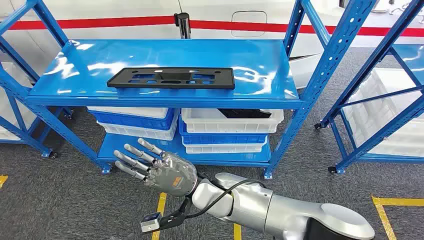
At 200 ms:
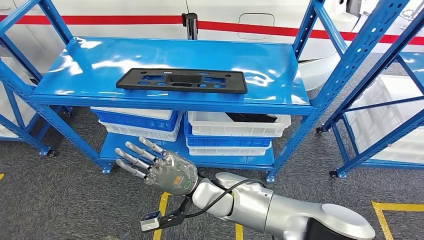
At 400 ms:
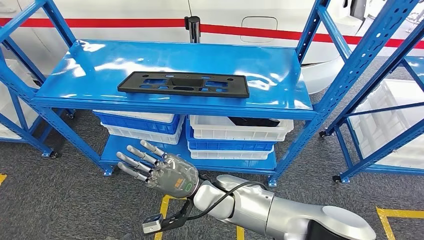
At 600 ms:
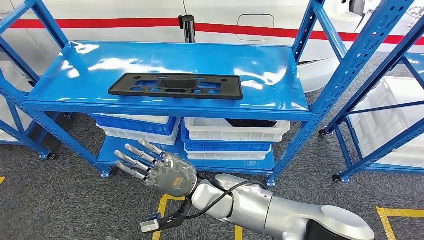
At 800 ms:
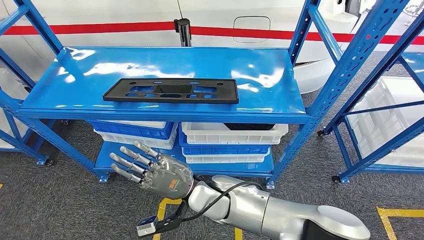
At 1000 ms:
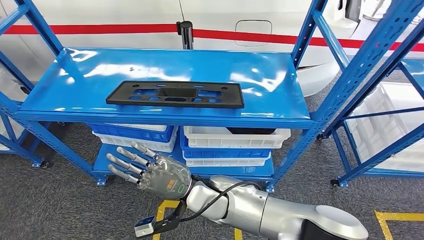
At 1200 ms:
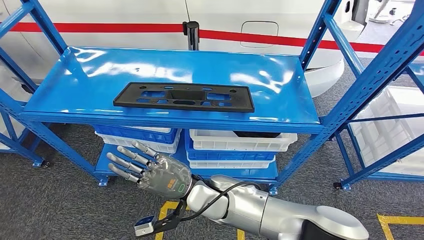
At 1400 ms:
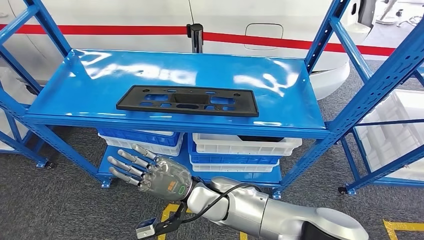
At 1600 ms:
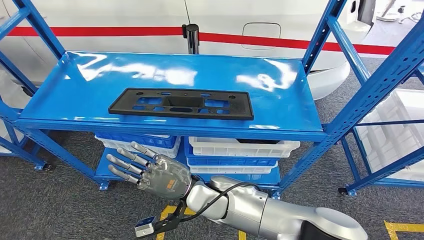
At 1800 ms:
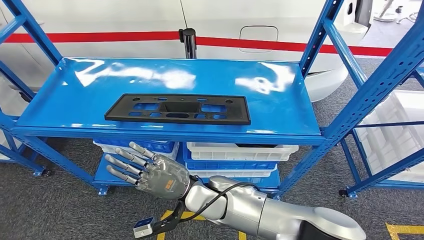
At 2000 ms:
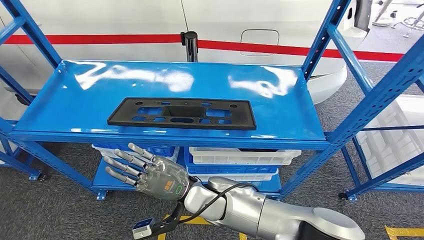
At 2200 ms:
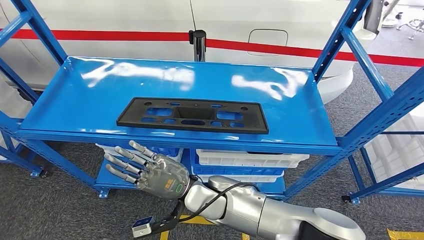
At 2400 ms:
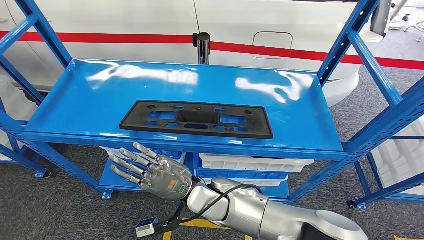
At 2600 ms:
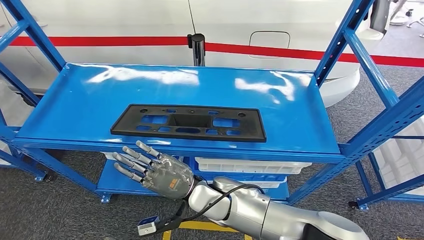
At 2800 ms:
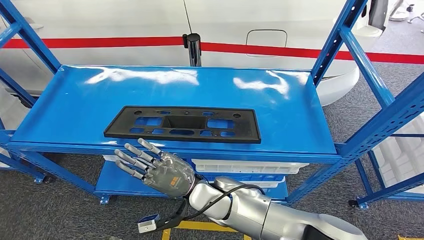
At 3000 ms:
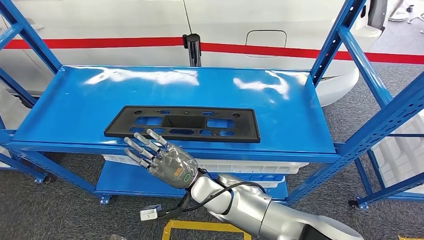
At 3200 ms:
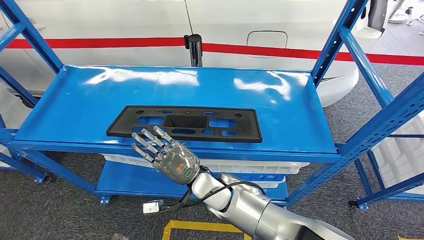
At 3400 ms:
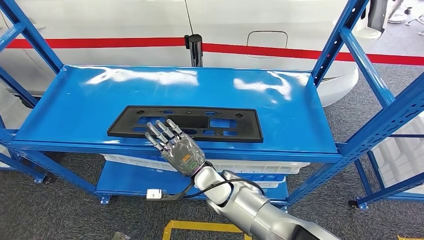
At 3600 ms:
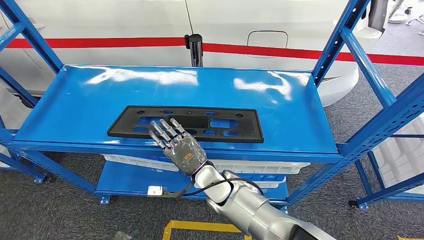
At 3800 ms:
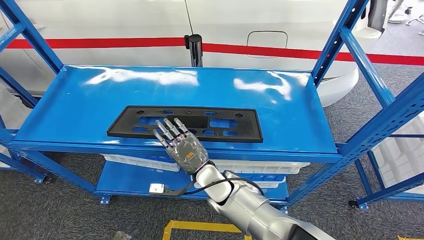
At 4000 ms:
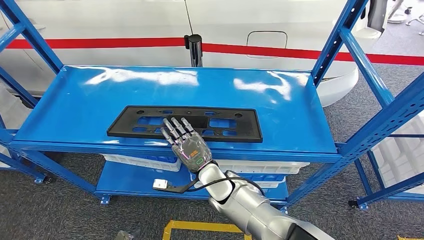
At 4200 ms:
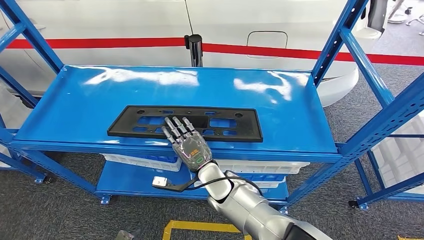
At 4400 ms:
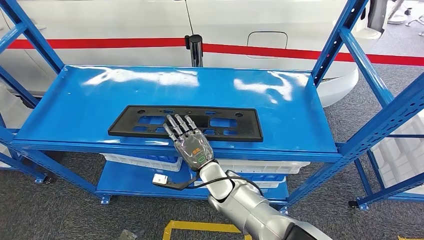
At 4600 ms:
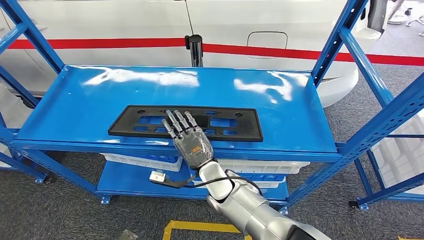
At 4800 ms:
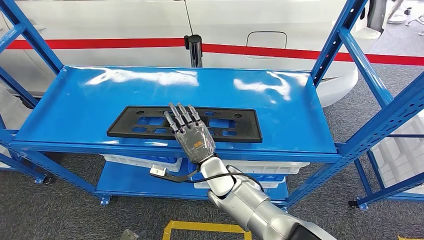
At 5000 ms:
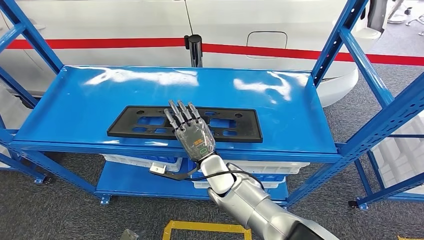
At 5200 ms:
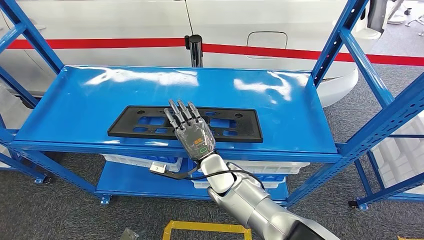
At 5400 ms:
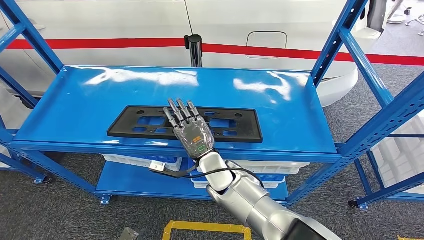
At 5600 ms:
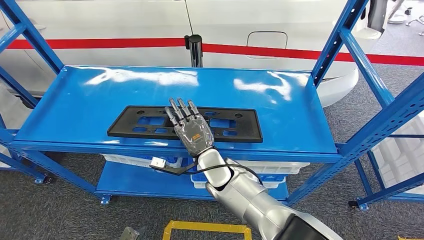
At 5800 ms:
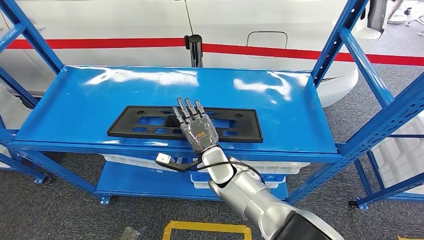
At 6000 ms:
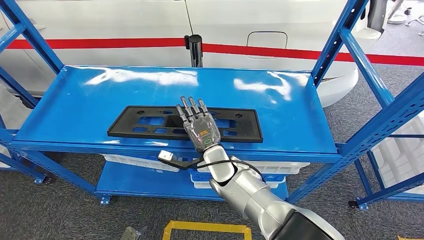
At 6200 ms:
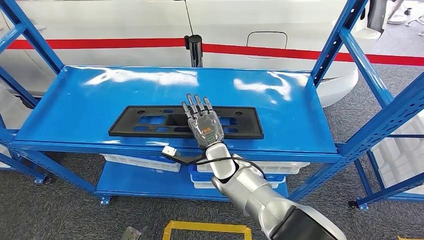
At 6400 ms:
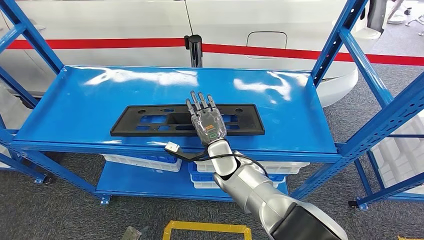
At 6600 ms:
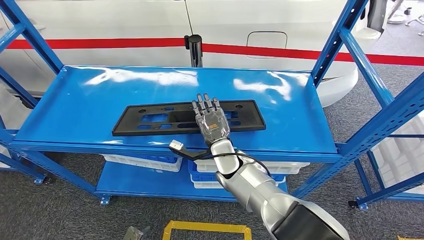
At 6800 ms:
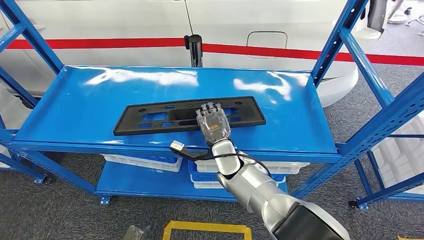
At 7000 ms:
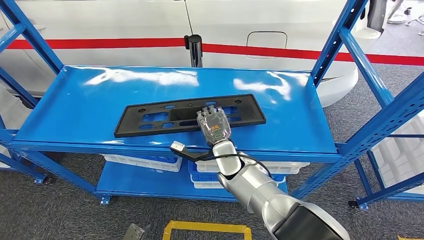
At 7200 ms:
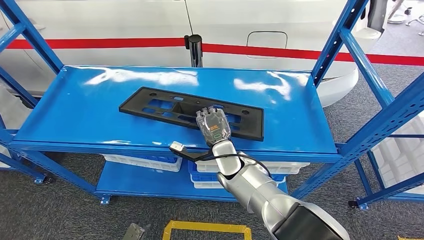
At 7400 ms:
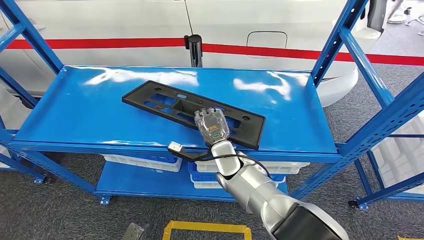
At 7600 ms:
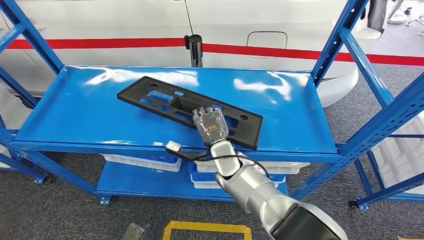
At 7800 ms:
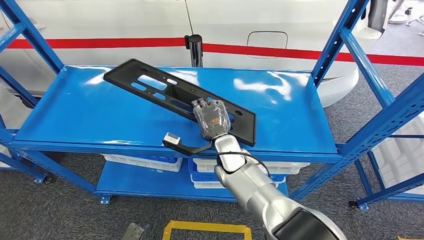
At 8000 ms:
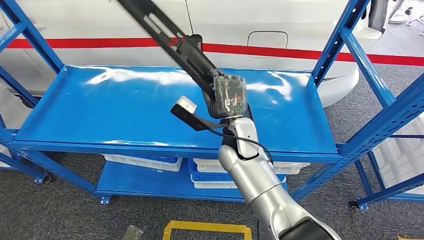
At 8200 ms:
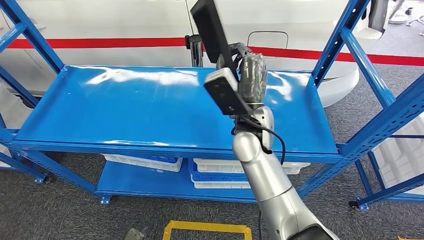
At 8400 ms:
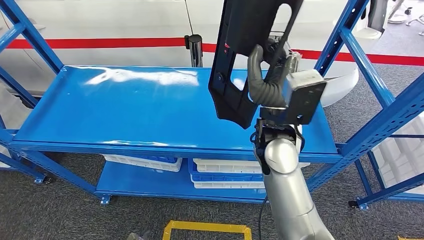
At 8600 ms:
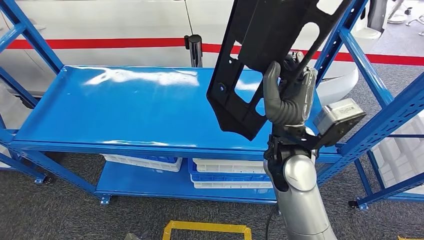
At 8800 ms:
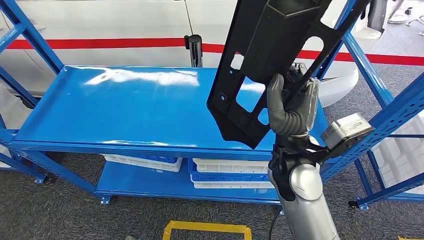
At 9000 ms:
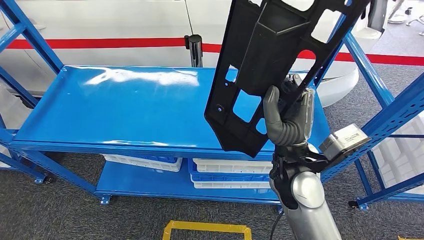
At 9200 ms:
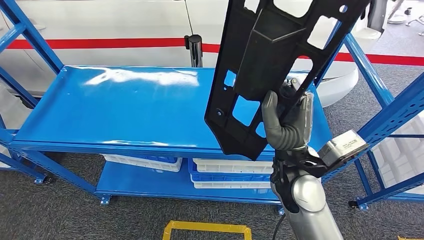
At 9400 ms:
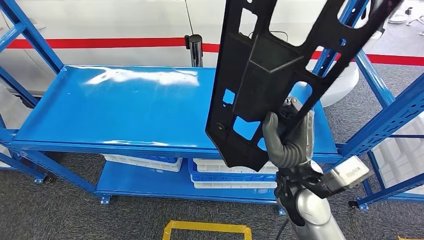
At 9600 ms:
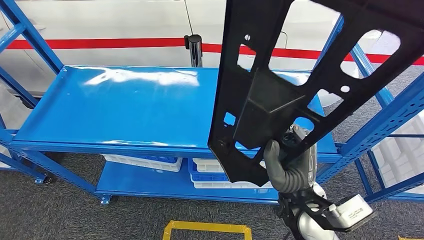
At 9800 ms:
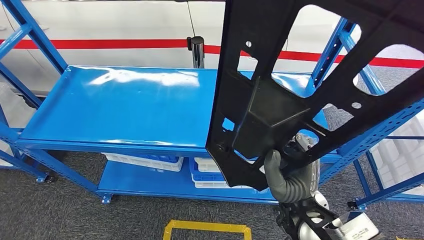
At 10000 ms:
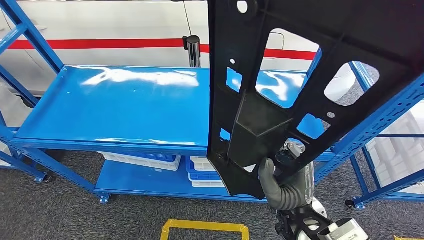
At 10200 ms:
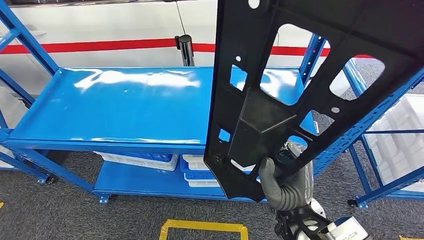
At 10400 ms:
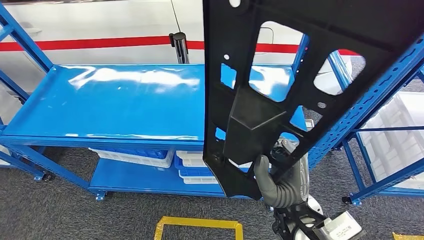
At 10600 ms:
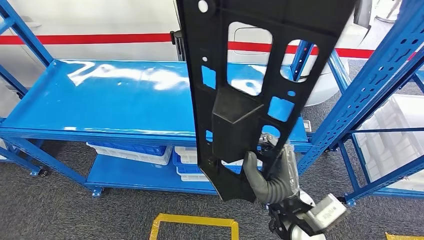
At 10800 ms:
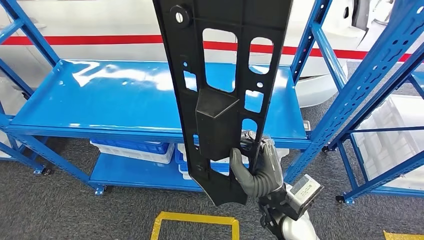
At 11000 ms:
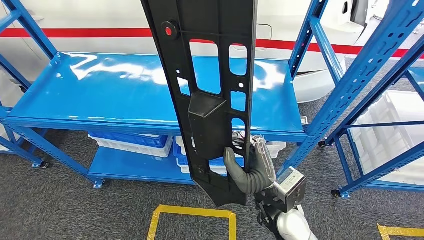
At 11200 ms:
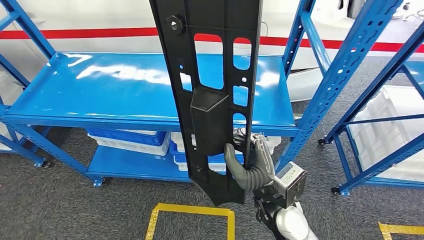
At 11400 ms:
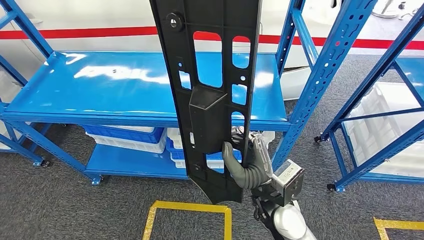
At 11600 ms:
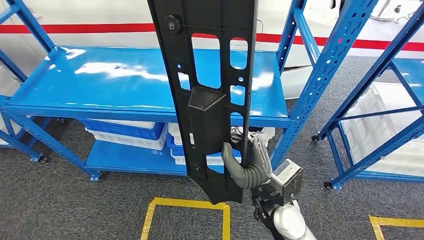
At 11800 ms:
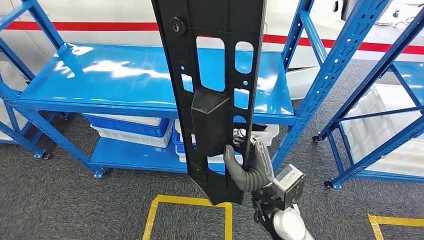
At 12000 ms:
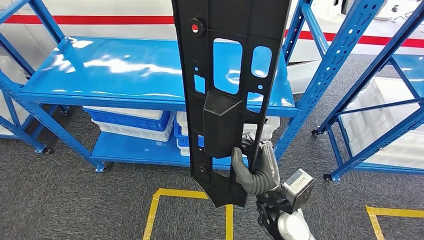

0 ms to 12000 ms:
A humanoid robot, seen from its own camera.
Step, 0 ms to 10800 ms: Pick up the large material from the shelf.
3000 ms to 4400 ms: The right hand ends up approximately 5 cm from where it was.
4400 ms to 6000 ms: The hands move only a little.
6000 ms to 7600 ms: The hands move only a little.

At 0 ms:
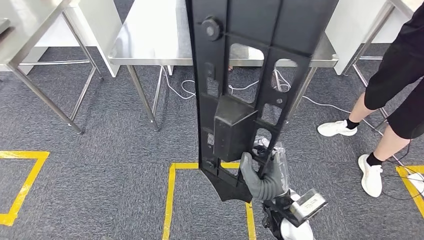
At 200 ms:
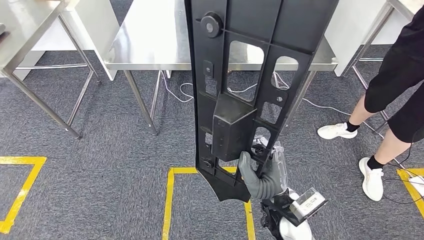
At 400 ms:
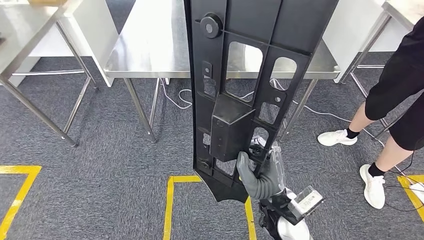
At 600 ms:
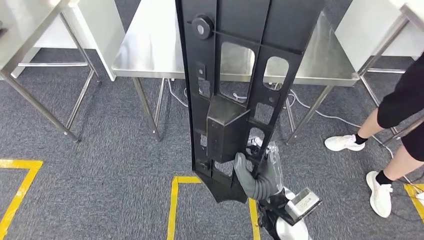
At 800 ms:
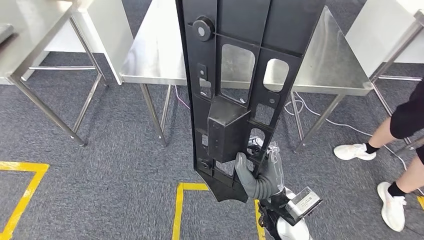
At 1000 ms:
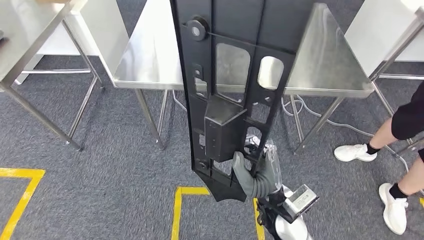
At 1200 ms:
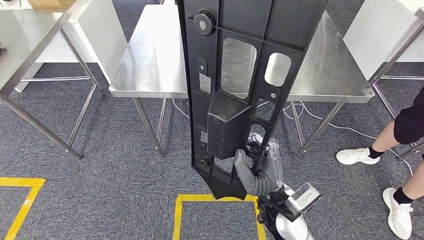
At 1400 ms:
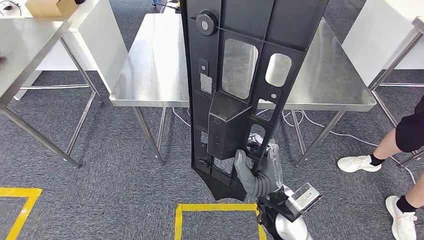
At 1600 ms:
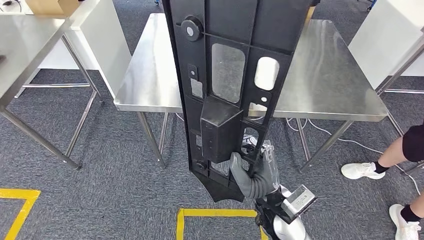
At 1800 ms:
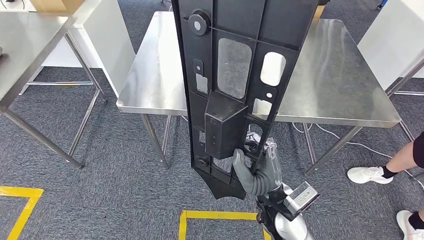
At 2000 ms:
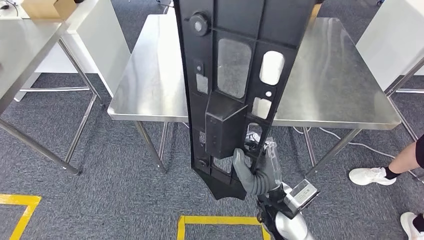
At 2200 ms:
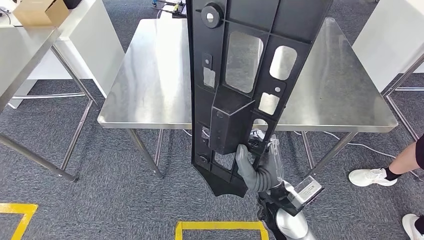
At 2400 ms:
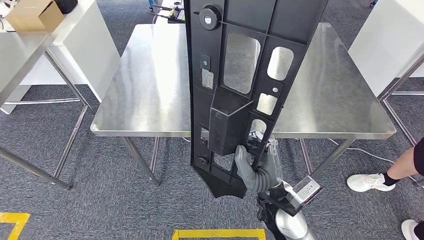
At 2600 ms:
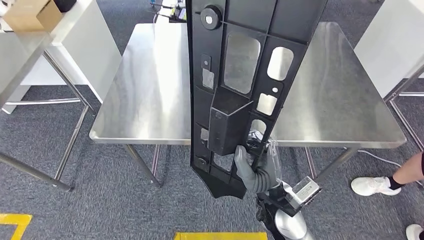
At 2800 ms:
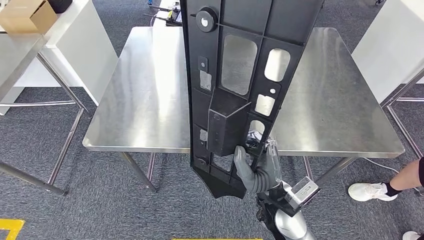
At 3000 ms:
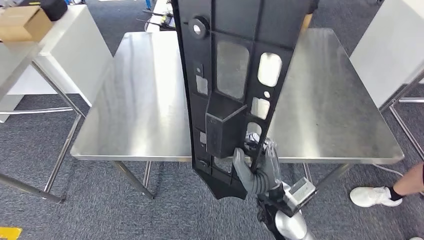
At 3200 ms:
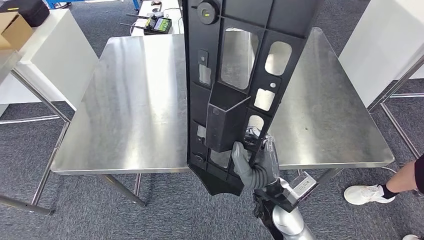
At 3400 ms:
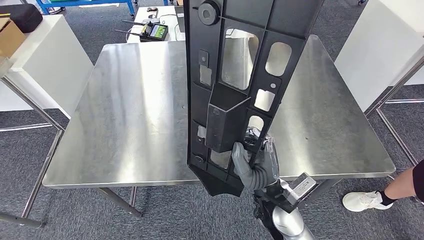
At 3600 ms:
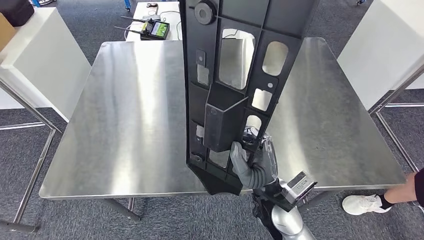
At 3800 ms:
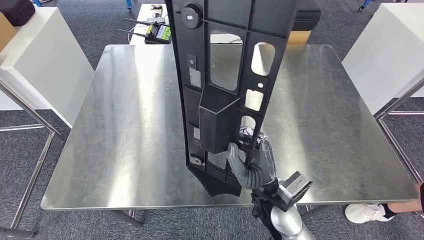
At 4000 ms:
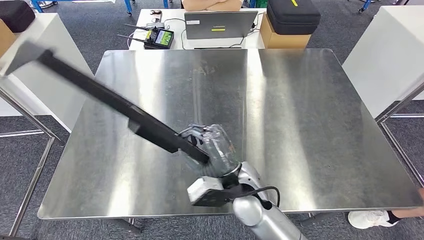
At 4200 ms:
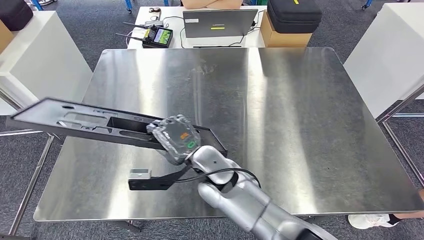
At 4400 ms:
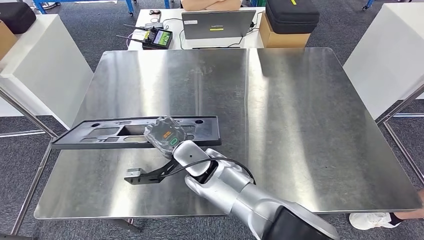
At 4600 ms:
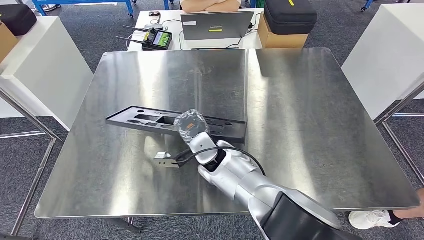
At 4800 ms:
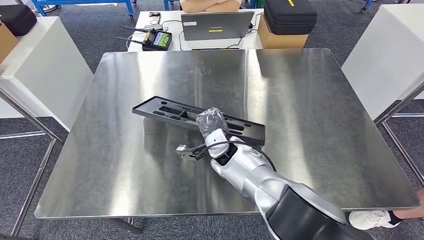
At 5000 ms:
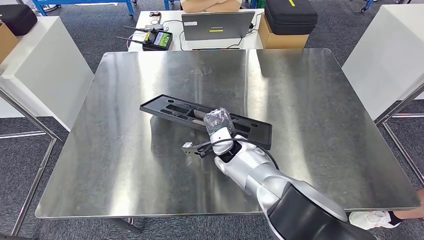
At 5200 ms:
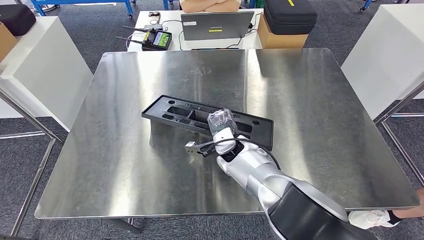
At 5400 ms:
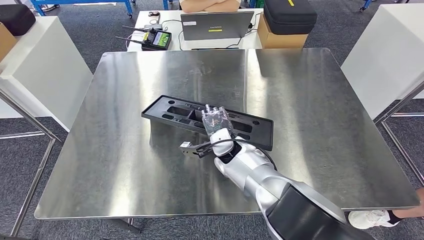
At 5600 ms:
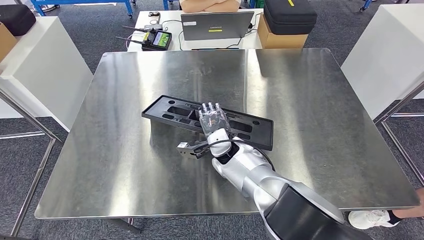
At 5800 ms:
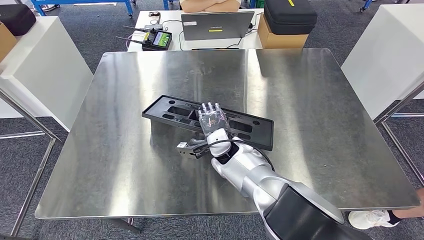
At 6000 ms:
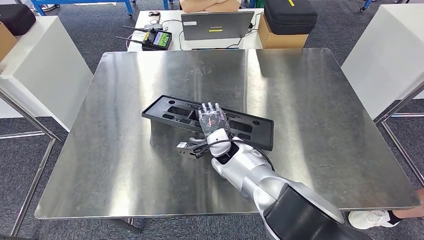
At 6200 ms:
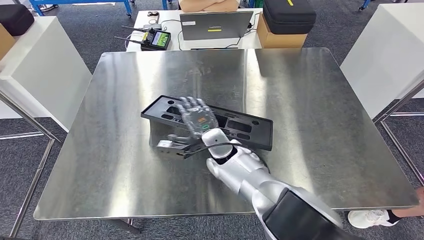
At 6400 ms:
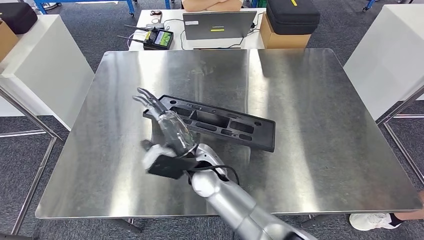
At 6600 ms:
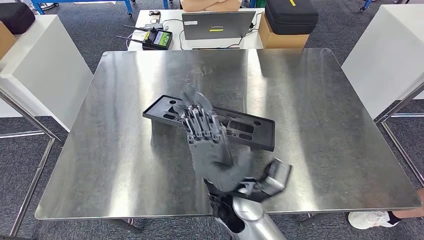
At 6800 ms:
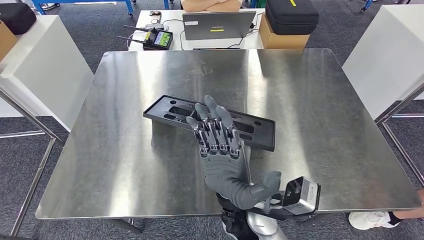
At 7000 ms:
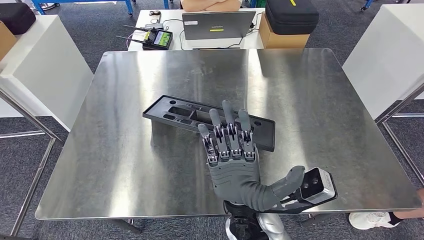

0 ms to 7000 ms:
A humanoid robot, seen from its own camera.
Step, 0 ms to 2000 ms: Move the large material to the workbench.
5600 ms to 7000 ms: The right hand goes roughly 20 cm backward. The left hand moves roughly 5 cm.
